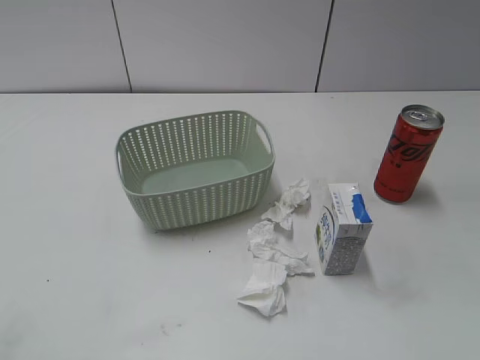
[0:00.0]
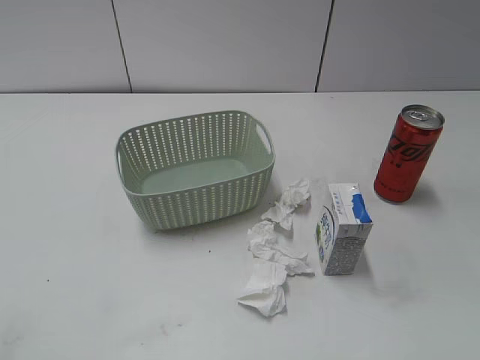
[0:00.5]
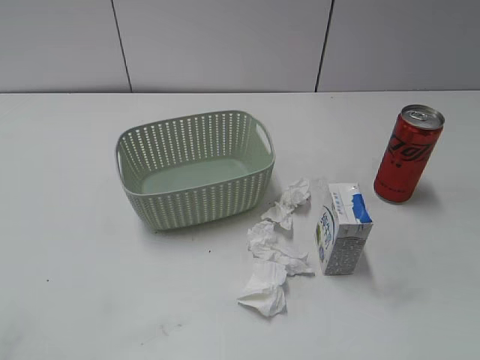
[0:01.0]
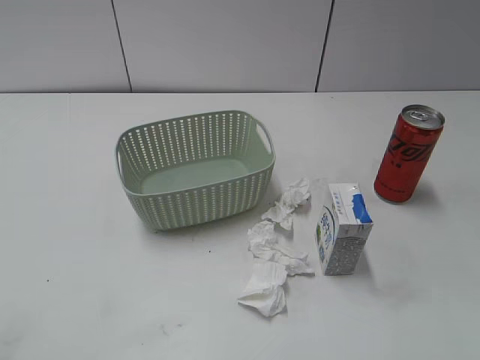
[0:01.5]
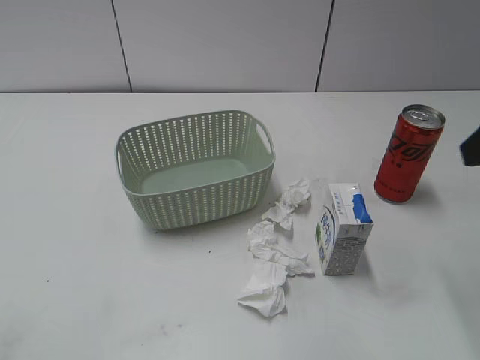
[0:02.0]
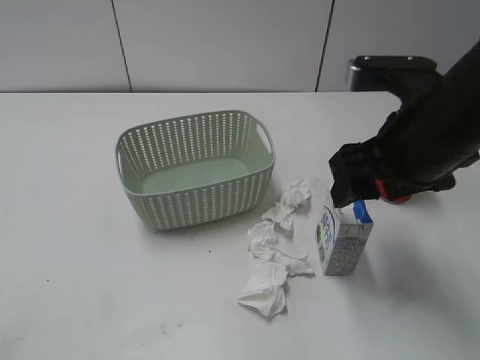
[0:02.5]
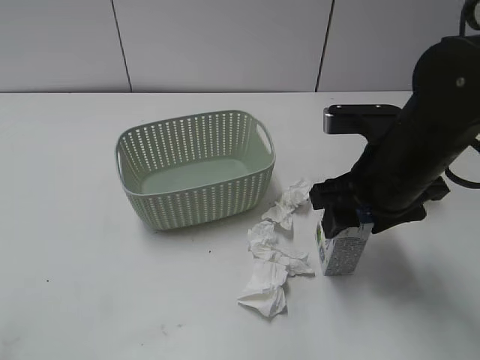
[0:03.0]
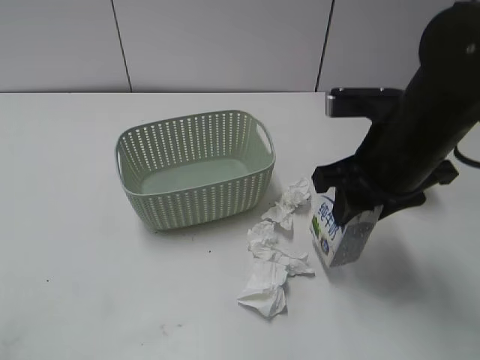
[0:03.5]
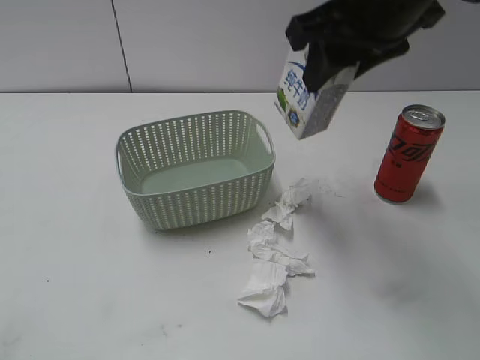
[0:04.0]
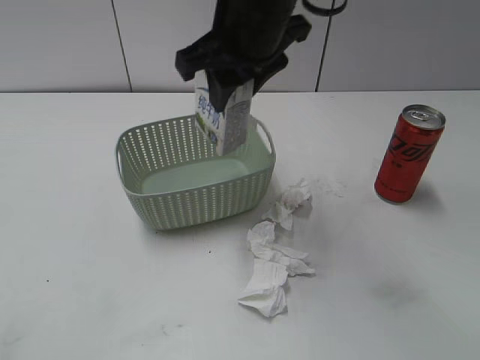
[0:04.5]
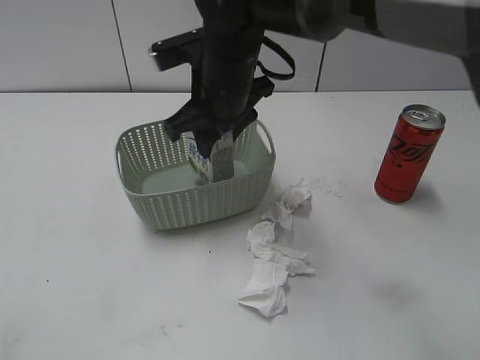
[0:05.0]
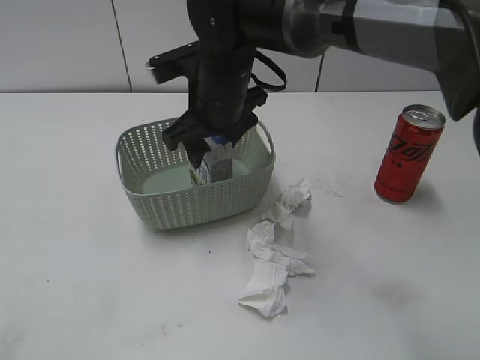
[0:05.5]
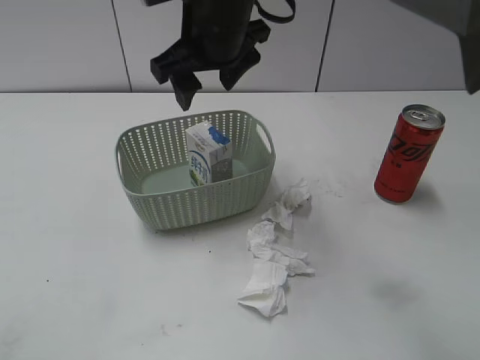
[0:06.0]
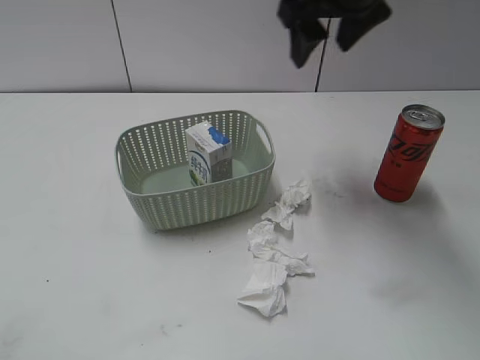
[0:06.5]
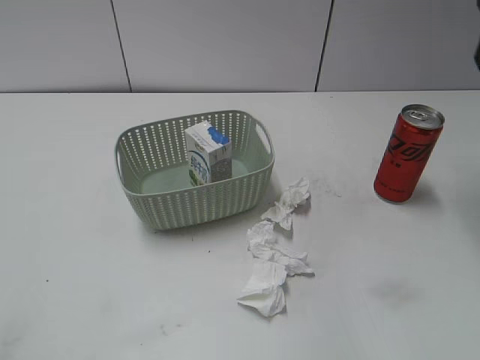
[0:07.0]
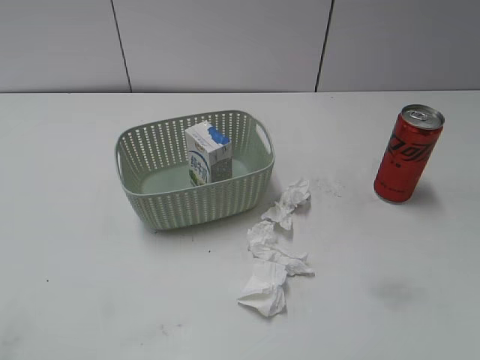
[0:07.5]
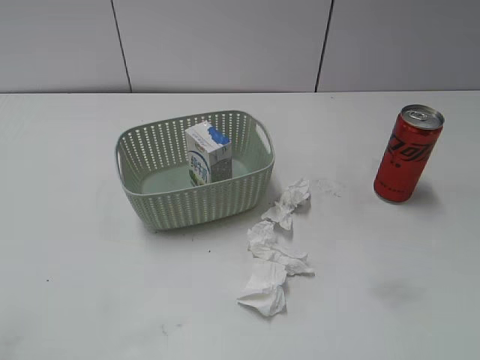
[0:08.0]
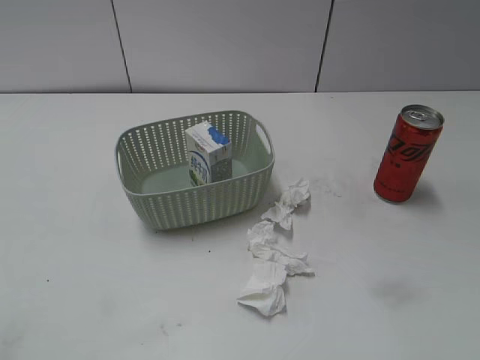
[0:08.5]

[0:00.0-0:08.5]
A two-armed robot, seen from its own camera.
Step, 0:02.0 to 0:03.0: Grasp the milk with right gripper.
Step, 0:03.5 to 0:06.0: Place the milk in the basket with right gripper.
0:02.0 to 0:04.0: The right gripper travels to the left and forward by roughly 20 cm, and closes.
0:04.0 to 0:06.5: The right gripper shifts some 10 cm forward, reaches approximately 15 cm downward, then returns, and opens its fingers.
0:06.5 to 0:08.5: The right gripper heads backward and to the right, covering approximately 40 cm.

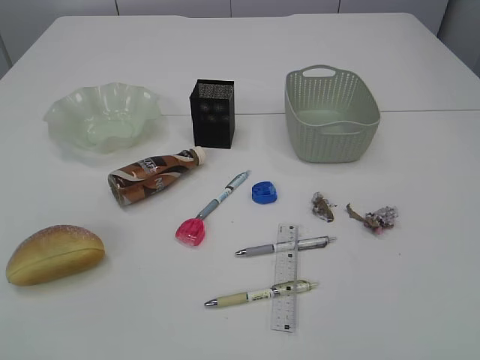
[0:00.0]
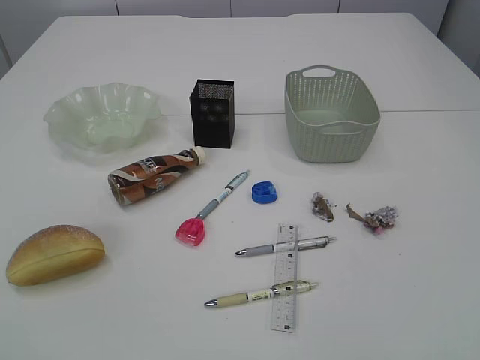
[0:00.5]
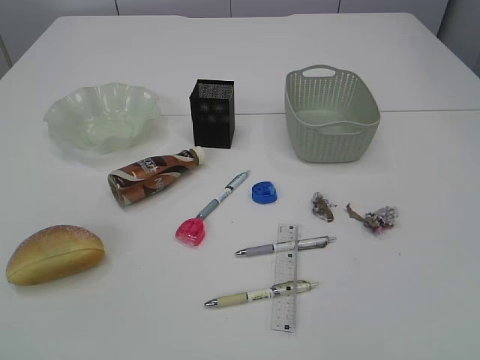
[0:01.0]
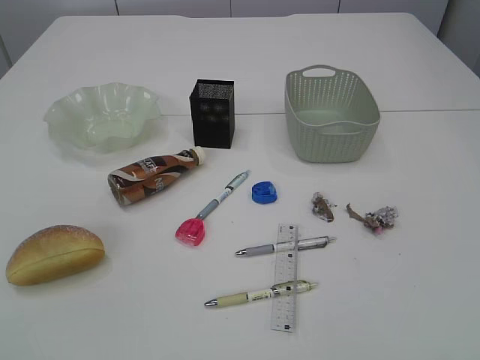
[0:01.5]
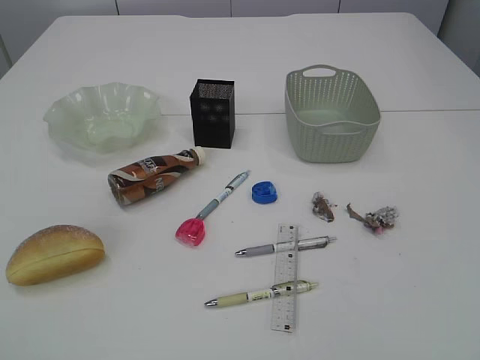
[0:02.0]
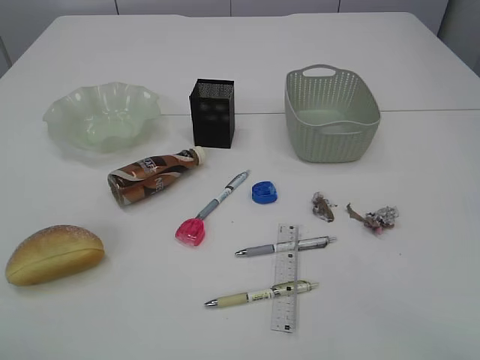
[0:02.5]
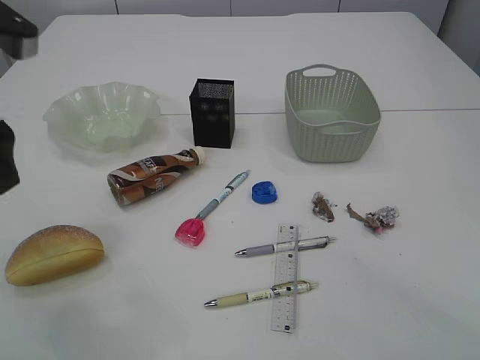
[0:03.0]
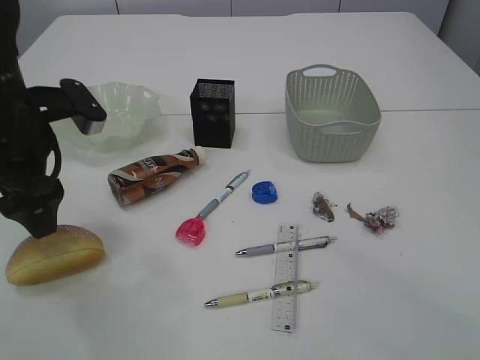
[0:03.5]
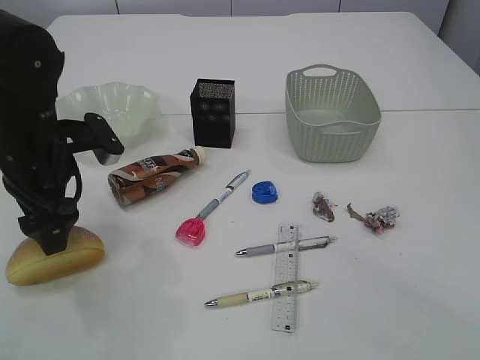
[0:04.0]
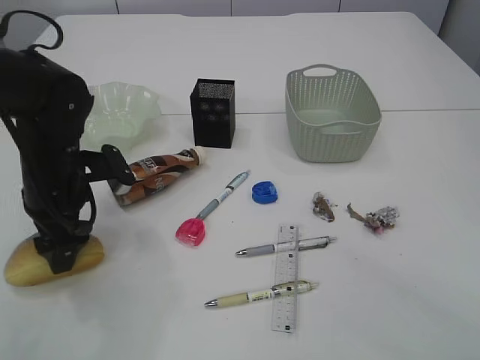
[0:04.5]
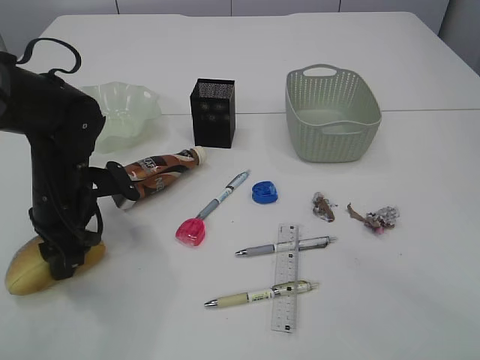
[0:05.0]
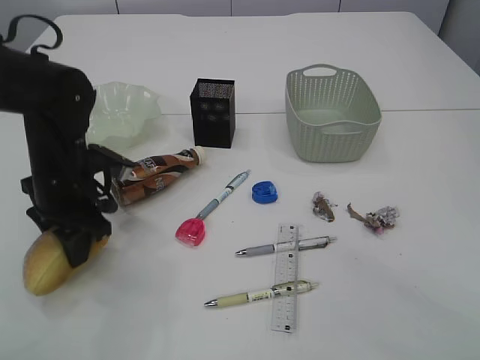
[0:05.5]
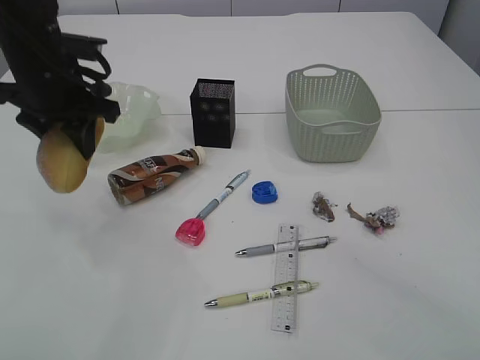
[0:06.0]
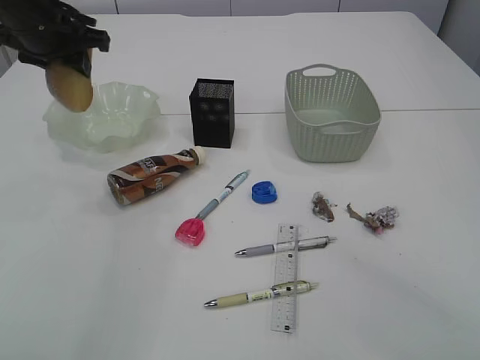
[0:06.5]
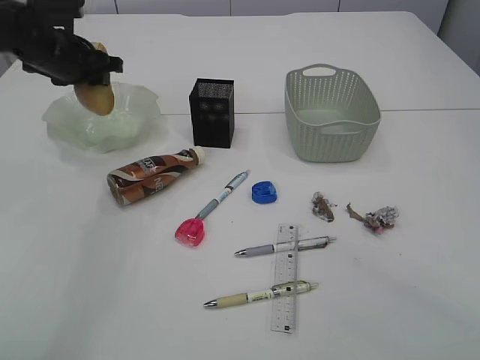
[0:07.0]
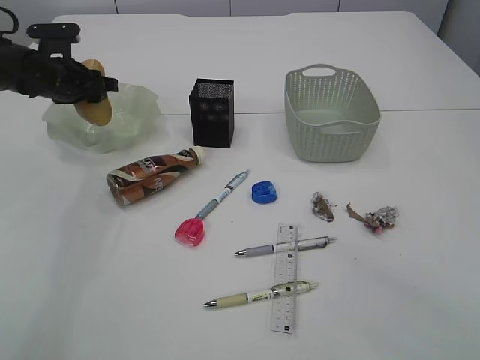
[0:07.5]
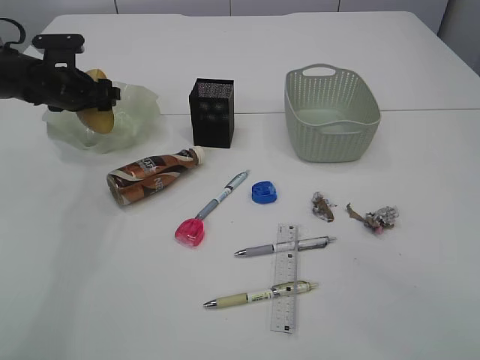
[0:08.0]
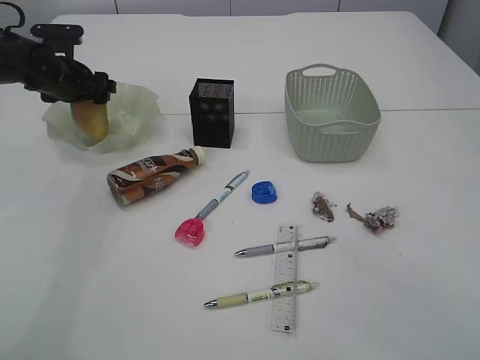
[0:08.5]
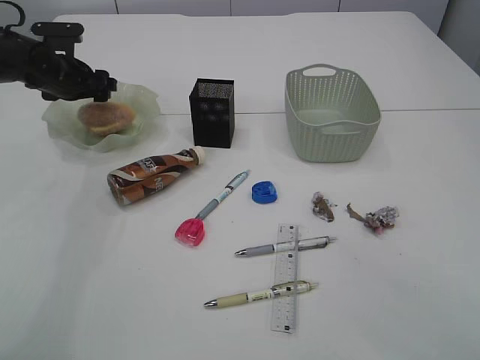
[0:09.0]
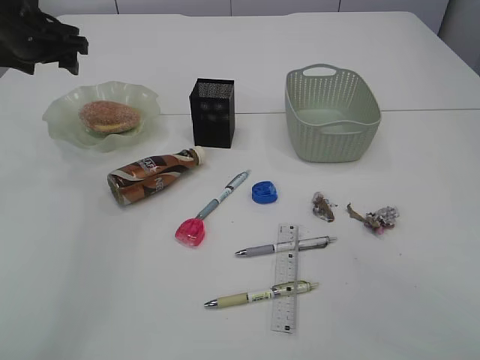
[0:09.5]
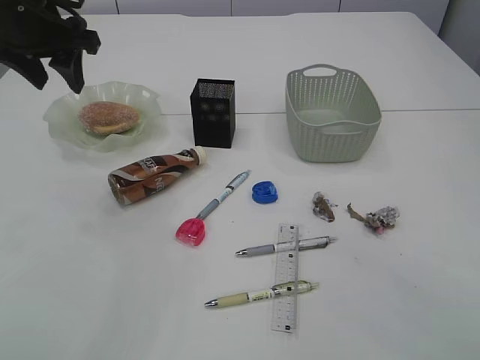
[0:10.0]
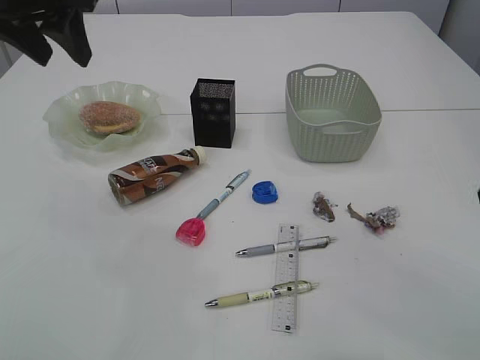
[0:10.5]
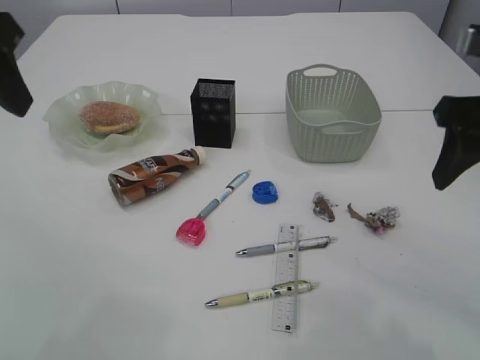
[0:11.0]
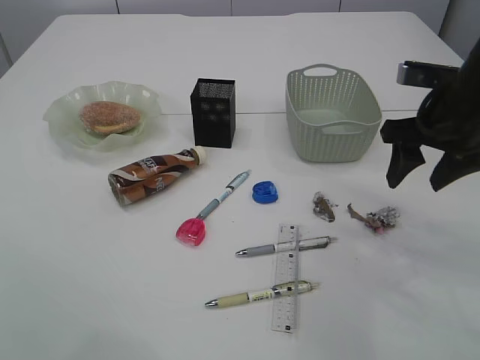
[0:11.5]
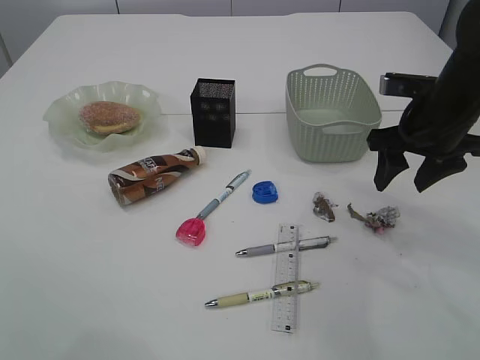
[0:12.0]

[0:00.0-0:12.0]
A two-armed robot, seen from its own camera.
Step, 0:06.0 to 0:09.0: place the bread in the plate.
0:02.0 to 0:04.0: The left gripper goes roughly 35 cm forward and downward.
0:04.0 to 0:06.0: The left gripper moves forward, roughly 5 cm, and closes up.
0:06.0 to 0:08.0: The left gripper shifts roughly 20 cm forward, downward and to the left, and opens up.
0:08.0 to 0:10.0: The left gripper goes about 20 cm upward and backward.
0:10.0 to 0:12.0: The right gripper moves forward and downward, roughly 25 cm; the left gripper shifts some 20 cm backward and upward.

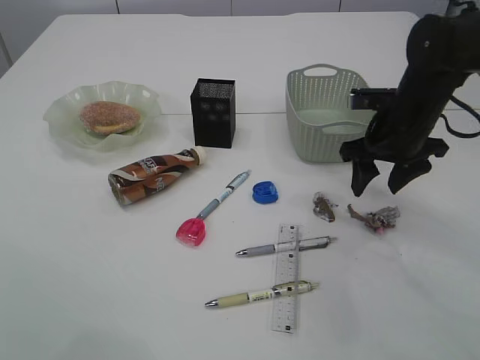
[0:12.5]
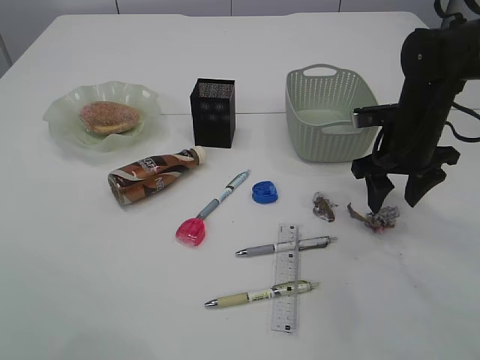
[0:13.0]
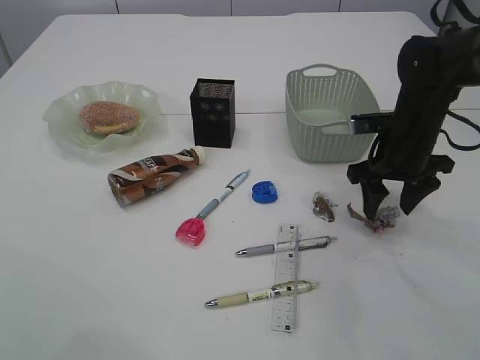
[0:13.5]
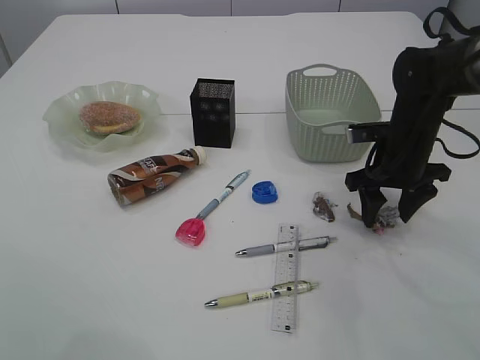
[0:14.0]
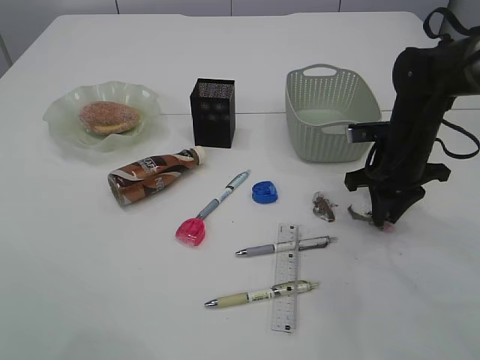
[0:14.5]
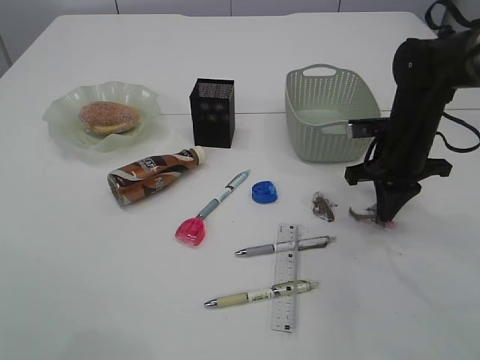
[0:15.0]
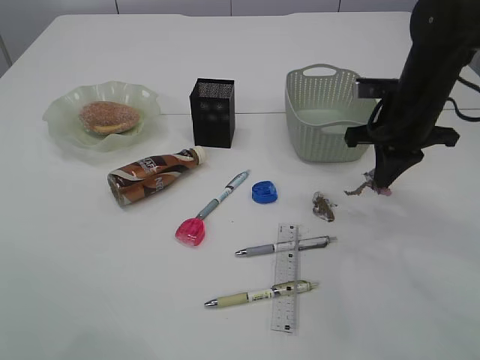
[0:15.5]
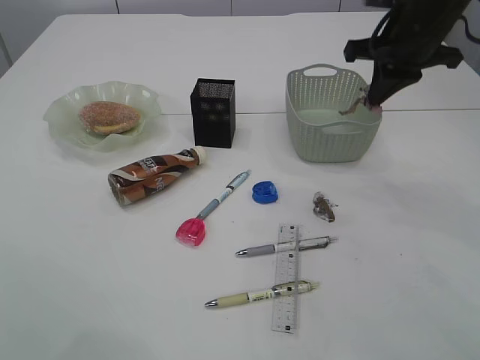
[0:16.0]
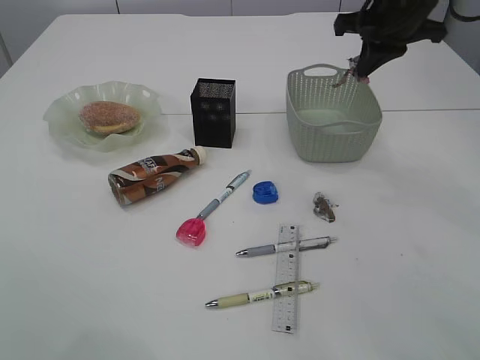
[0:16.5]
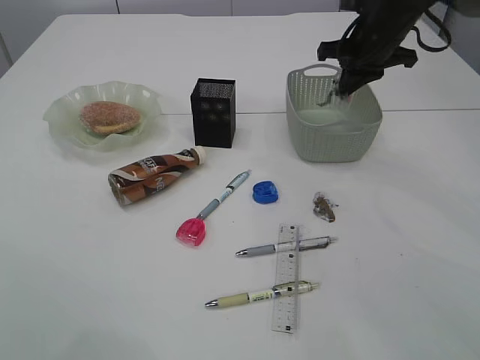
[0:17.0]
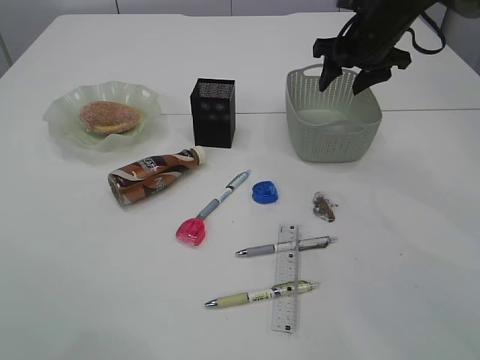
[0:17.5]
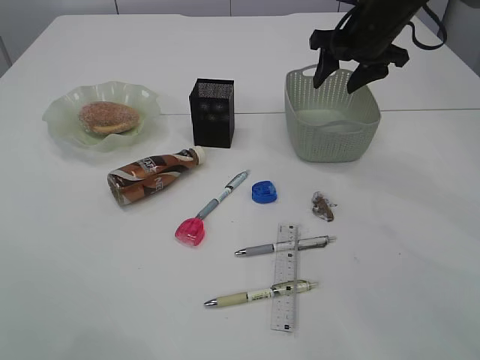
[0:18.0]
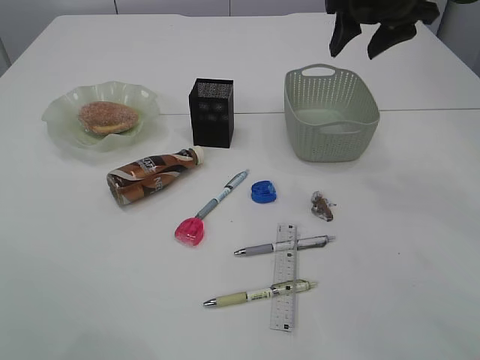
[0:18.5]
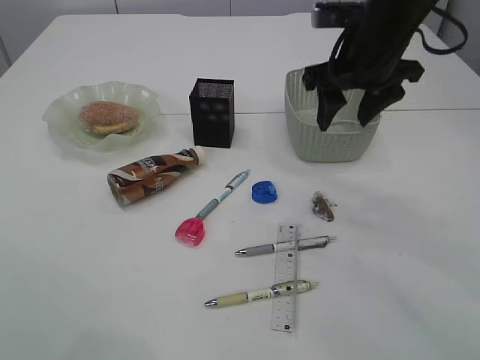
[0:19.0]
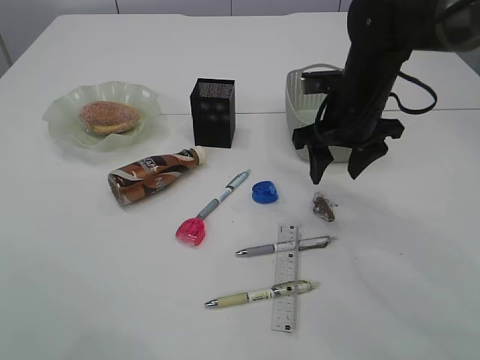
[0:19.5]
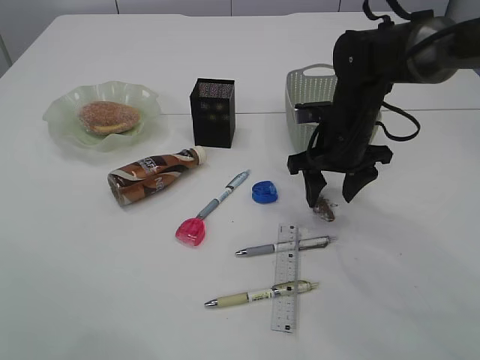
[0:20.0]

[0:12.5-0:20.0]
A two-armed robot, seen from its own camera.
Step, 0:12.5 to 0:15.0: Pick up the waste paper.
Step, 0:15.5 to 0:18.5: Place the waste paper in the basket.
0:12.5 to 0:14.5: The right gripper closes.
0:14.5 to 0:16.5: The right gripper shifts about 15 cm upward, and closes up.
0:16.5 to 0:18.0: The right gripper ends up some 5 cm from where it was, and opens.
0:18.0 to 0:20.0: The right gripper heads downward, backward and to the left, covering some 15 cm.
